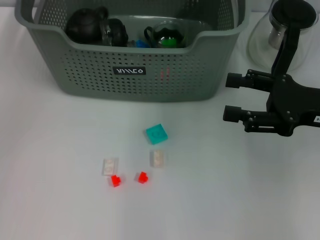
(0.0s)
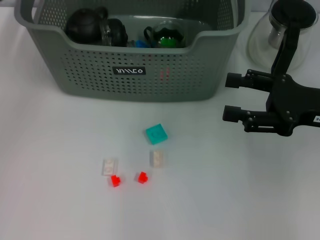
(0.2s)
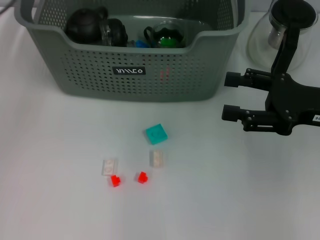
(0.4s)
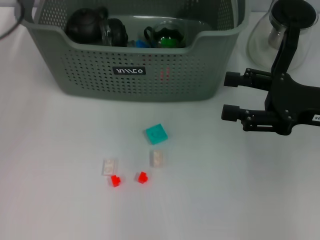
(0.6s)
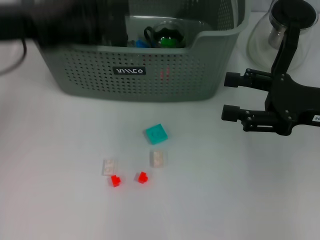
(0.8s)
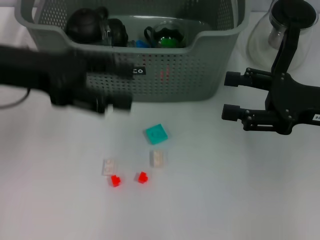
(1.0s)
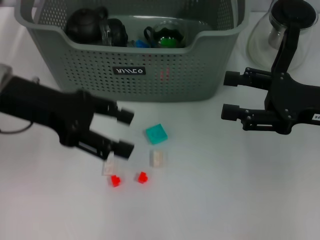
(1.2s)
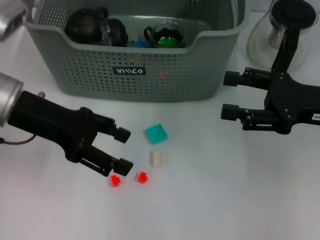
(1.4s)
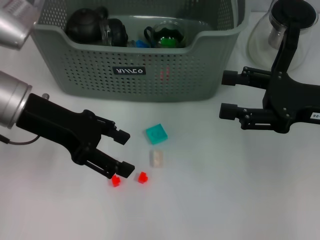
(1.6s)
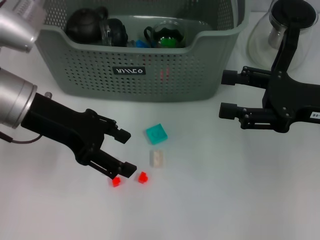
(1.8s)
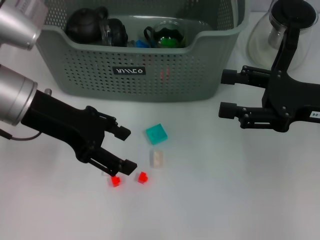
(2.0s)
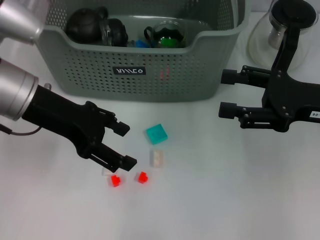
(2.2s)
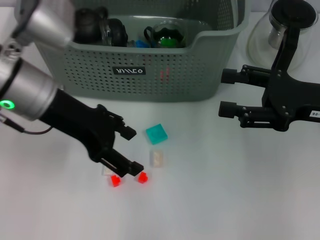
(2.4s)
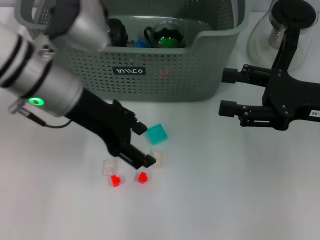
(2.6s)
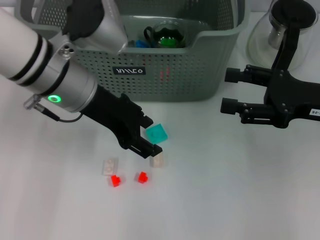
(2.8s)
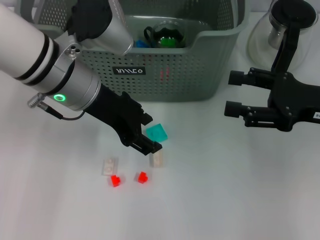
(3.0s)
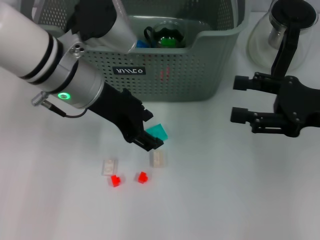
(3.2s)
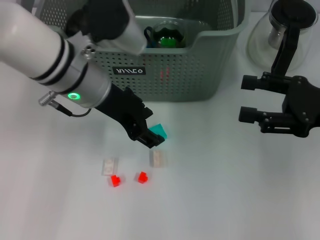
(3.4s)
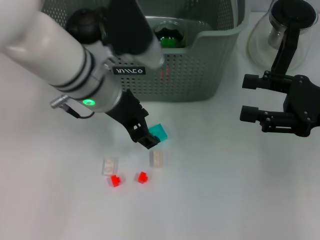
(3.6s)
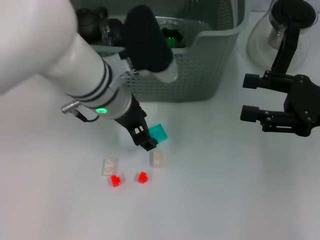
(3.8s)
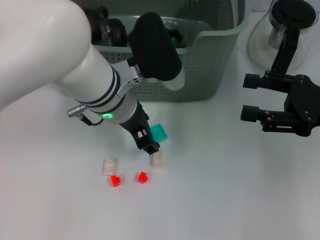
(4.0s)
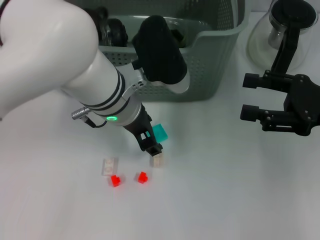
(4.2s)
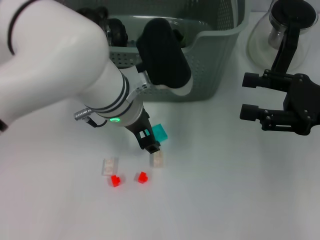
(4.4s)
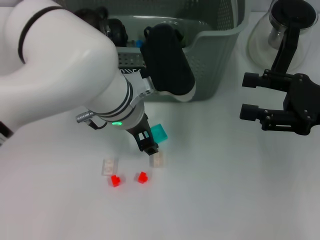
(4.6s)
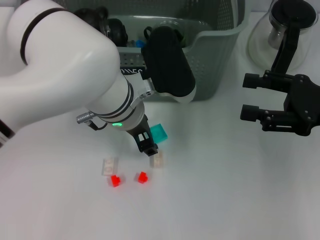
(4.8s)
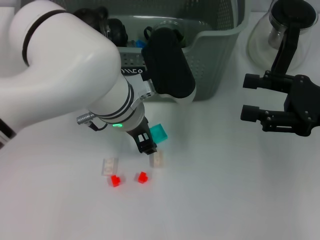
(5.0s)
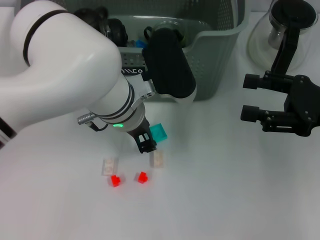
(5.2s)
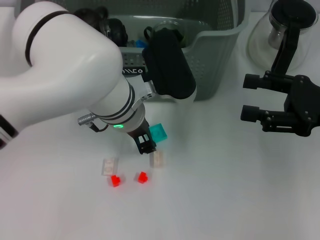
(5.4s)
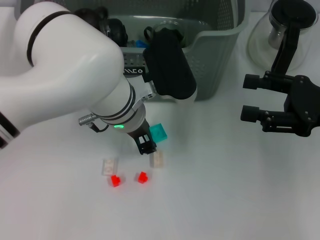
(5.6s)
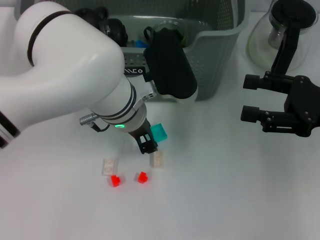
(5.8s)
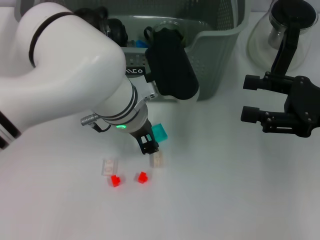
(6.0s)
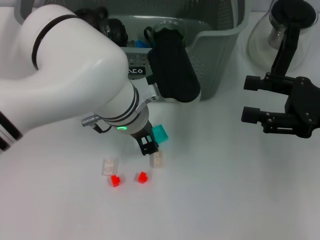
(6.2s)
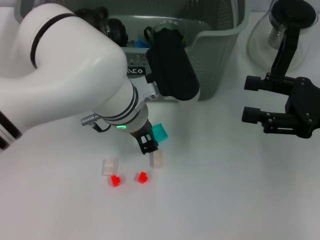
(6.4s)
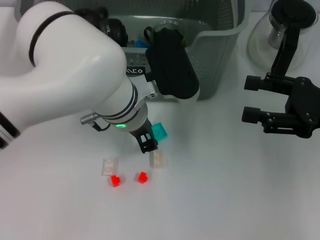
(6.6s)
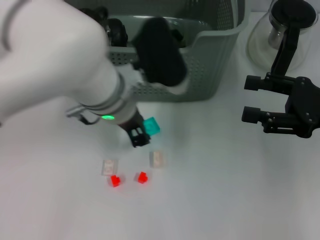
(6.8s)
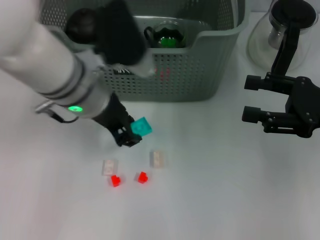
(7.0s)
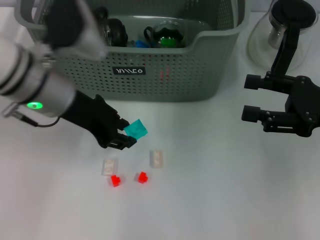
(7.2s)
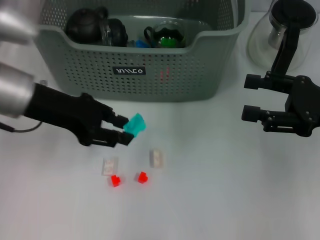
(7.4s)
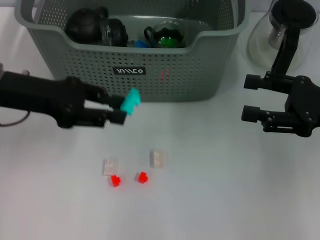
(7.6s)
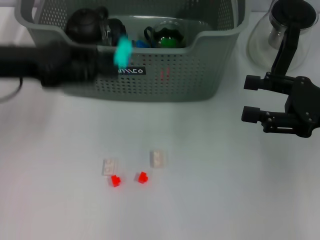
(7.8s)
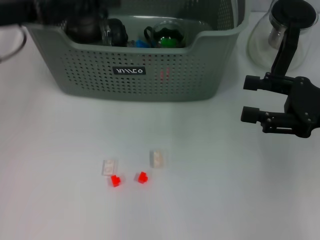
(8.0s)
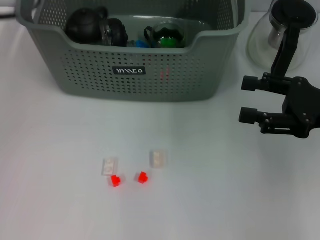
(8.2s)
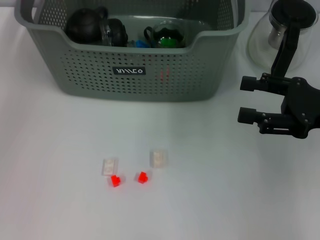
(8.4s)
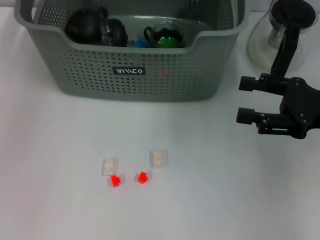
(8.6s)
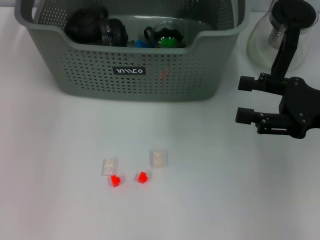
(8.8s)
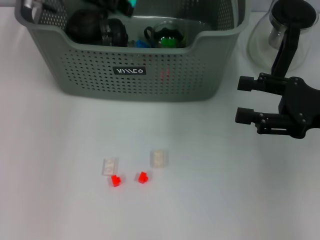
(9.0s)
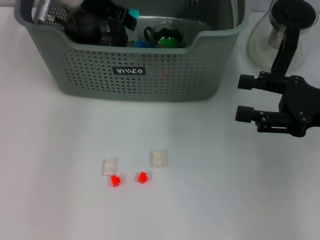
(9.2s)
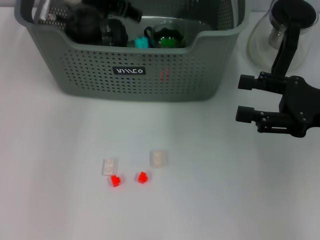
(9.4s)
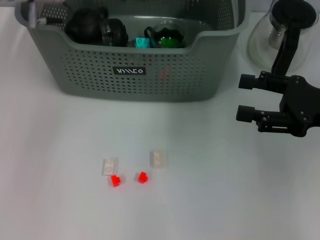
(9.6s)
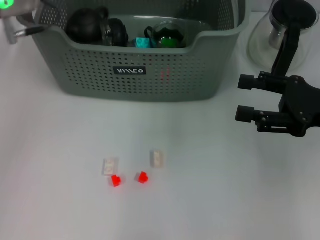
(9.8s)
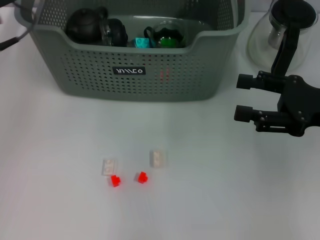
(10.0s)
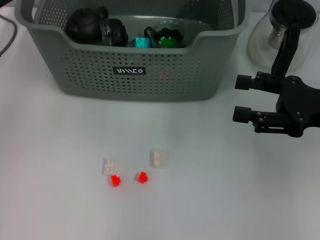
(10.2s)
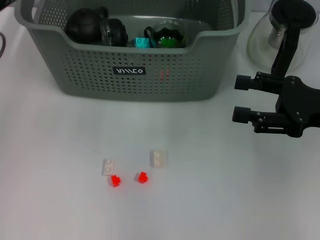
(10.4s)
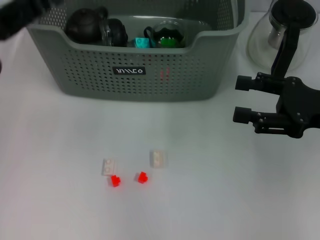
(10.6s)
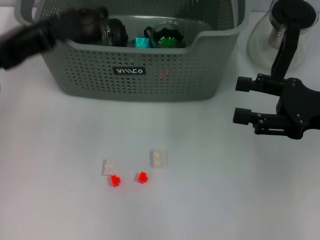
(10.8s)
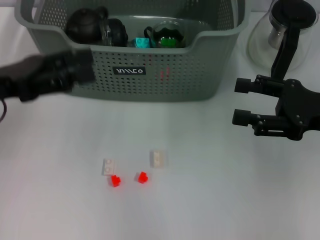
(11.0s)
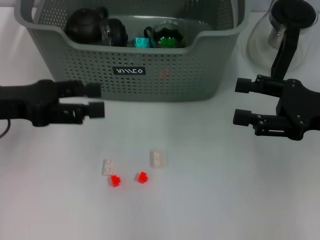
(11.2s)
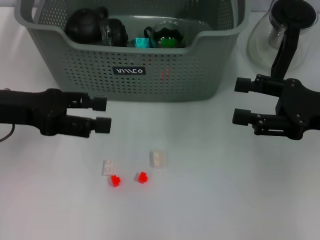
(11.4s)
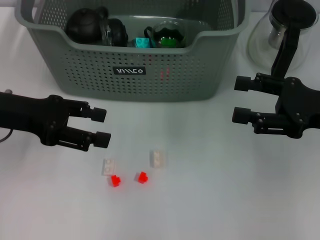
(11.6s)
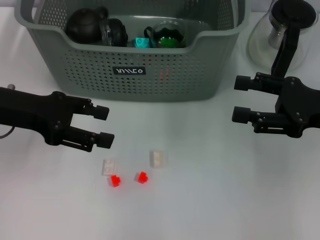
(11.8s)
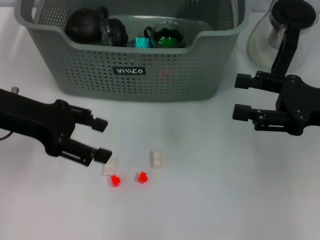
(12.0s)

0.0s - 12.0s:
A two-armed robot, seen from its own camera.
Task of the whole recording: pick up the teacup on the table and place it into the storage bin, pick up the block on the table and place it into the storage bin.
Step, 0.0s - 6.4s: Grasp the light blue block with left gripper.
Step, 6.6s - 9.4s: Place the light blue block in the storage box with left gripper.
0.0s - 1.6s: The left gripper travels downward and backward by about 10 cm.
1.6s - 3.0s: The left gripper travels to the right by roughly 10 cm.
3.0s - 4.4s: The left gripper goes about 5 cm to the right.
4.4s - 6.0s: Neither gripper changes place.
6.0s - 7.6s: The left gripper goes roughly 20 cm to the left.
7.6s - 9.0s: The left gripper moves forward and to the right, about 15 cm.
9.0s - 10.4s: The left gripper goes some 20 cm backward and to the left, and opens.

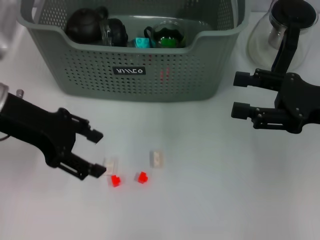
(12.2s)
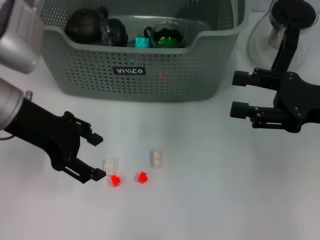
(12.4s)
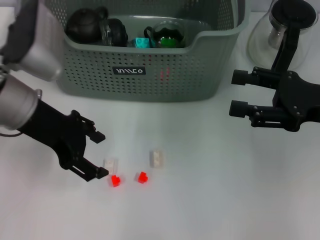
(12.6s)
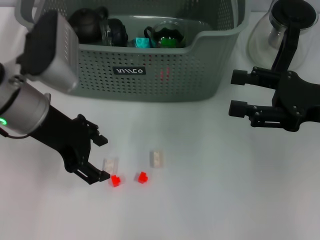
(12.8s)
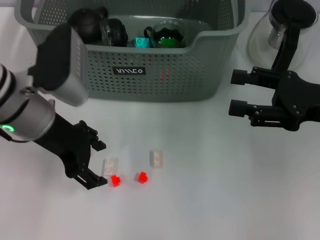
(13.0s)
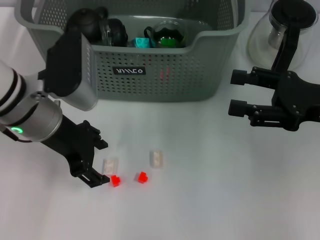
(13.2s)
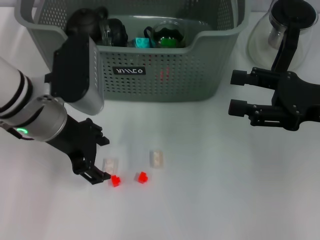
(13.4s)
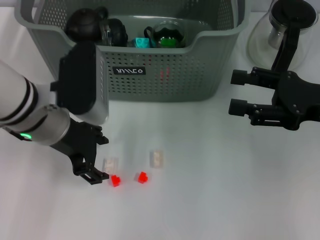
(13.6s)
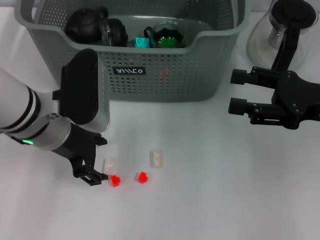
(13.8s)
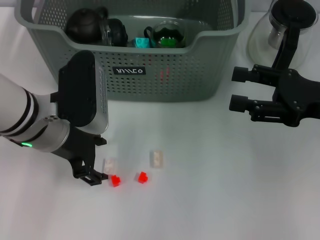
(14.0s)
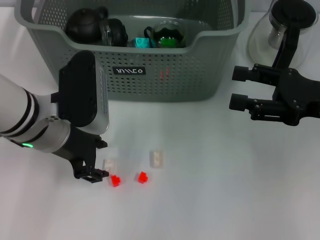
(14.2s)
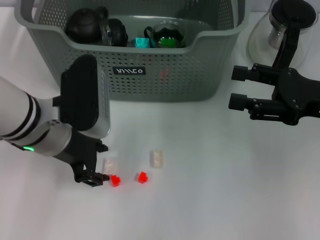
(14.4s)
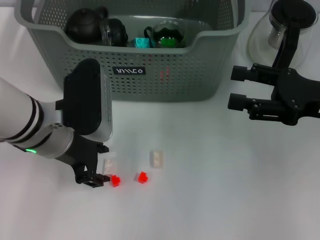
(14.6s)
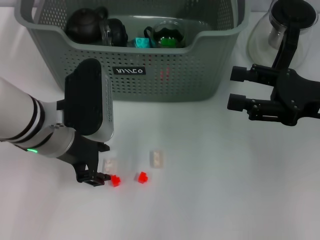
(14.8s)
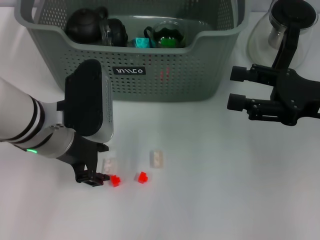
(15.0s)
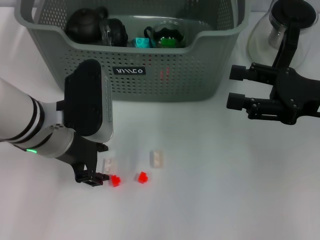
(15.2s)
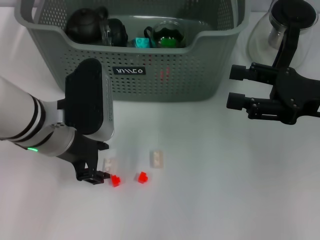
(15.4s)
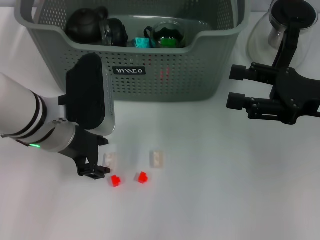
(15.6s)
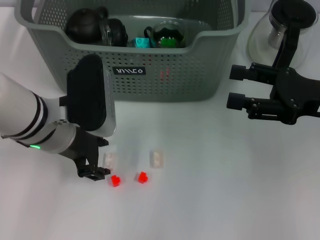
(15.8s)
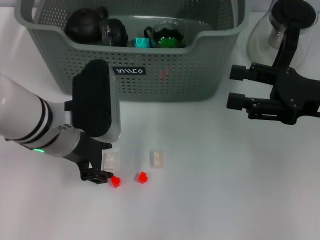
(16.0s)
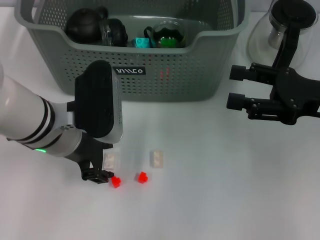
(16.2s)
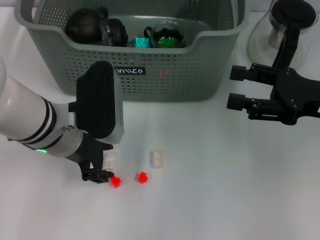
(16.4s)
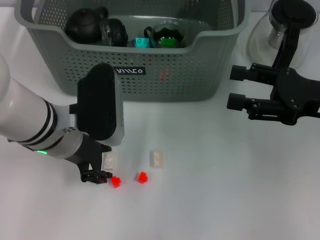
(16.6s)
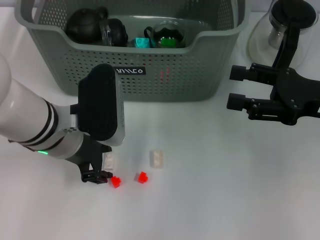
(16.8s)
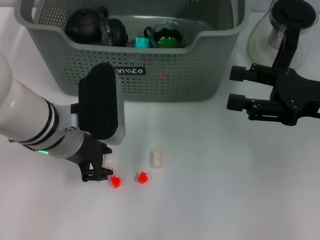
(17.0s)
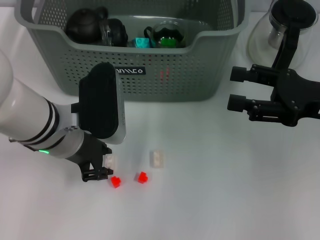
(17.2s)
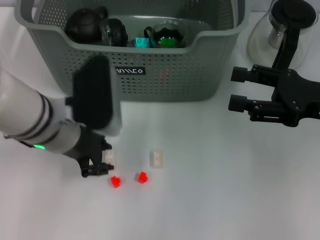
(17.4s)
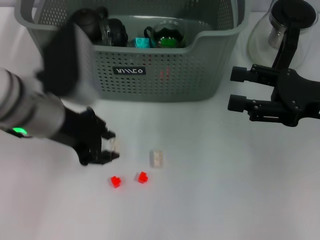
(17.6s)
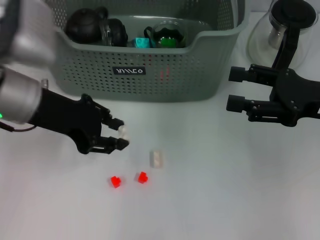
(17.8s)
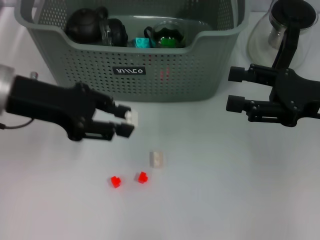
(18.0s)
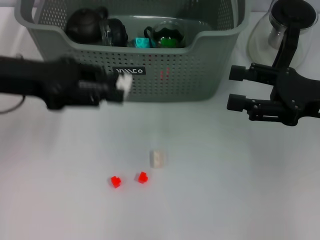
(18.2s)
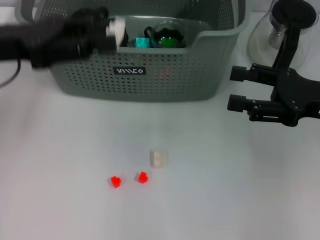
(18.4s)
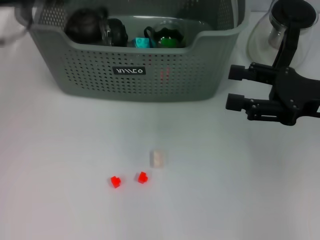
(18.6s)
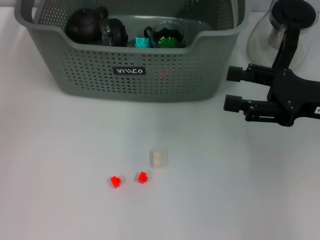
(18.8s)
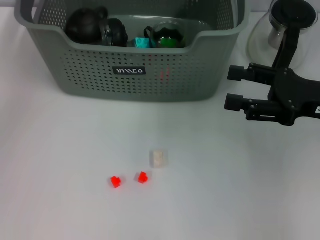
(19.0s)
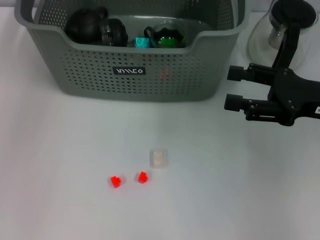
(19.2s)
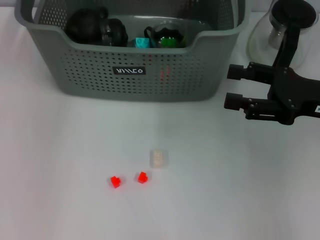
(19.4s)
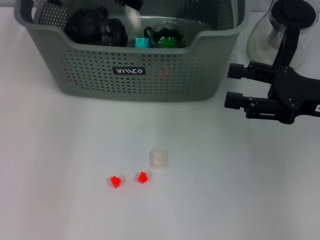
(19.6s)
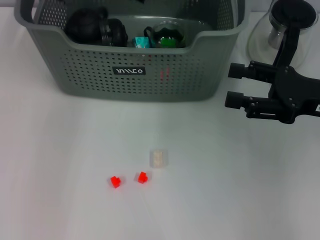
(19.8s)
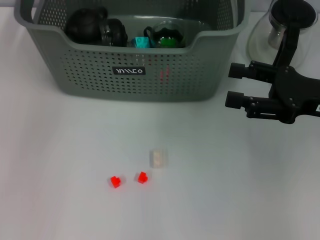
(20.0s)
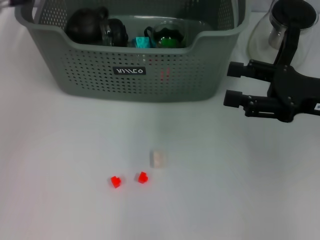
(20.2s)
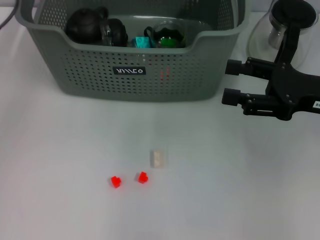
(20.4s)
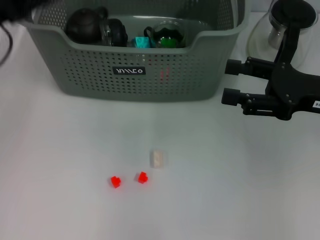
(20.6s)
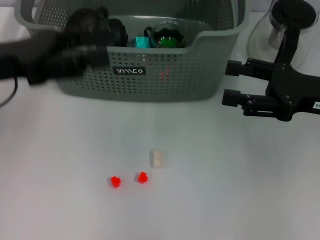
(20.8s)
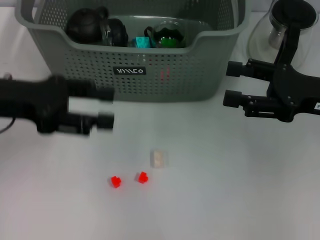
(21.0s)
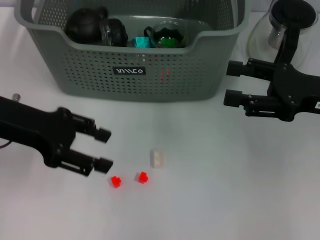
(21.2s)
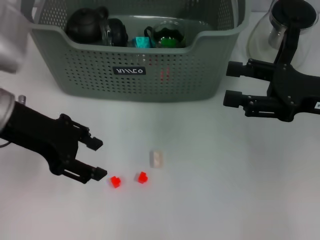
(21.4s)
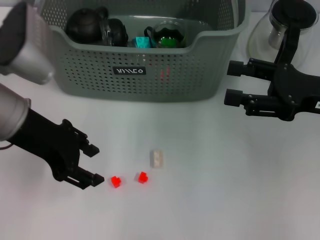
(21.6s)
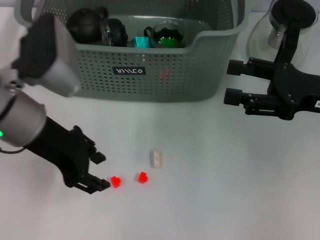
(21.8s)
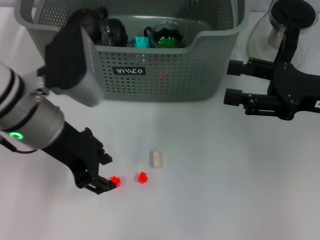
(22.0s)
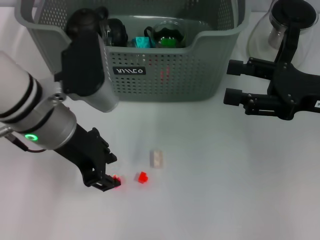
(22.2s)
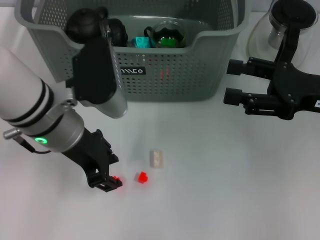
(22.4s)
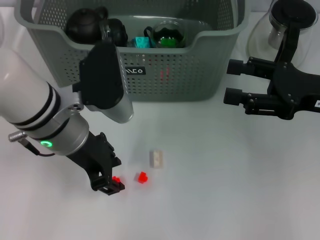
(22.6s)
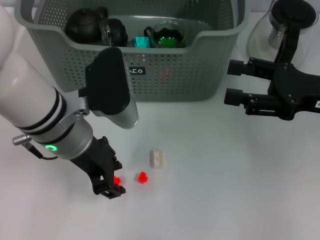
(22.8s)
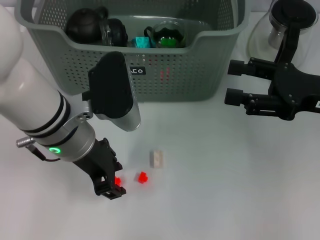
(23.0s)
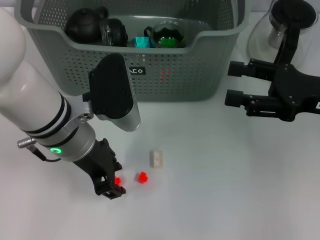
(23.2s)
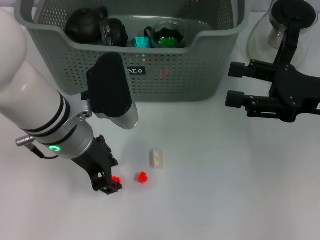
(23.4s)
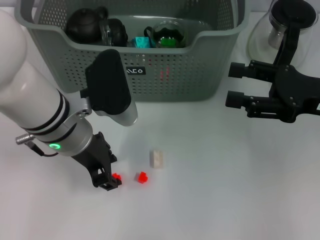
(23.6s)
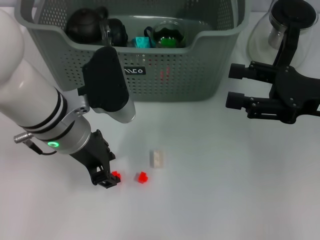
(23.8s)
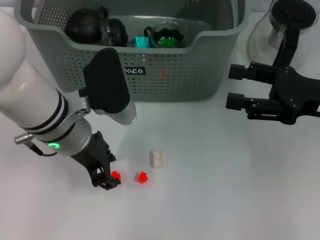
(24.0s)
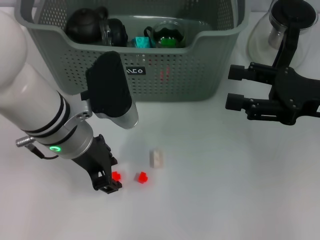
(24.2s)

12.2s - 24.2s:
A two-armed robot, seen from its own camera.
Task of the whole recording: pick up the teacup on the table and place it into the storage bin, pick up the block on the table and place it into the storage bin.
Step, 12.2s - 17.0s: Grasp the white block with left gripper.
Step, 17.4s - 19.8s: Place the white block in the storage box with left gripper.
12.2s - 13.8s: The left gripper heads to the right, covering about 10 cm.
13.8s - 15.2s: Neither gripper changes place.
15.2s - 16.6s: Both grippers stay put.
16.6s - 18.2s: The left gripper shifts about 15 cm to the left and upward.
18.2s - 19.8s: The left gripper shifts approximately 15 cm forward and to the right.
19.8s - 21.2s: The left gripper is displaced backward, to the left and downward by about 20 cm.
21.2s - 22.6s: The left gripper moves to the right, roughly 10 cm.
22.6s - 24.2s: The grippers make only small movements.
